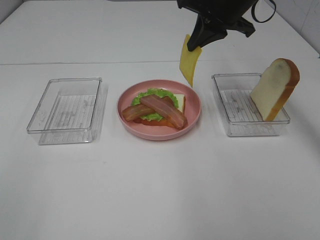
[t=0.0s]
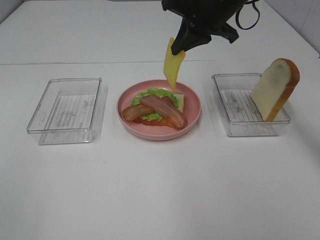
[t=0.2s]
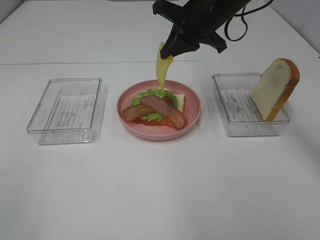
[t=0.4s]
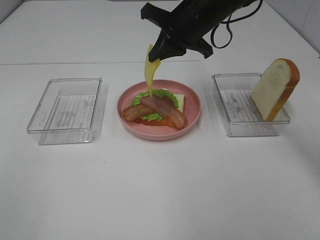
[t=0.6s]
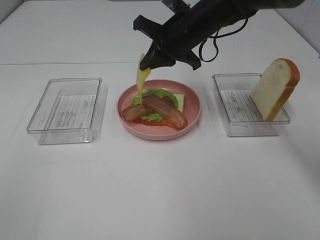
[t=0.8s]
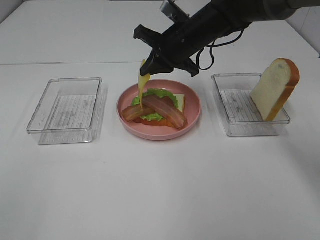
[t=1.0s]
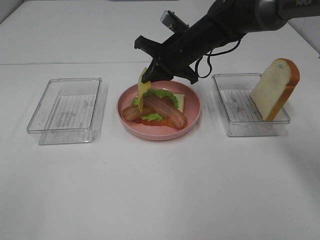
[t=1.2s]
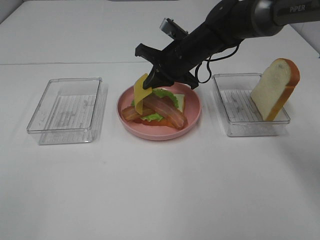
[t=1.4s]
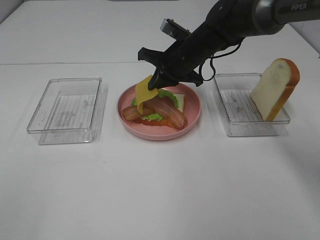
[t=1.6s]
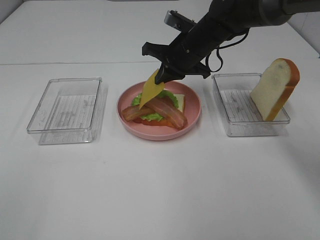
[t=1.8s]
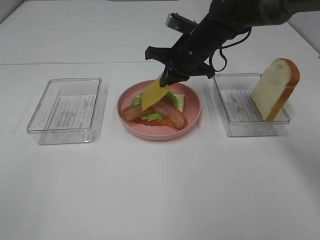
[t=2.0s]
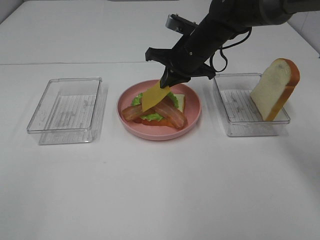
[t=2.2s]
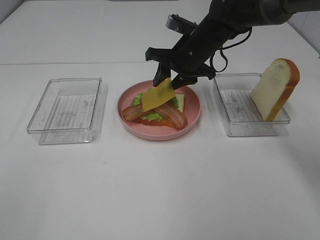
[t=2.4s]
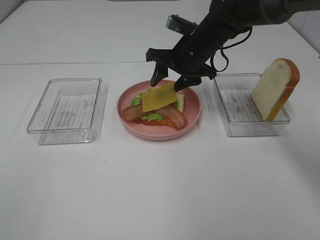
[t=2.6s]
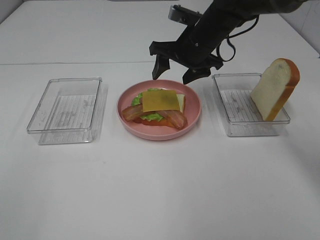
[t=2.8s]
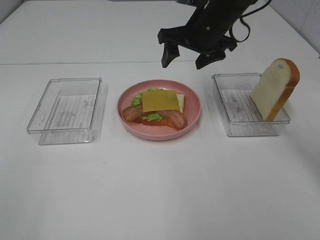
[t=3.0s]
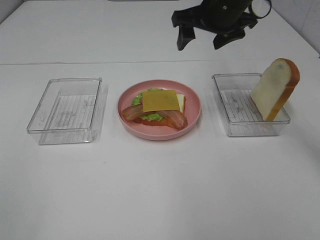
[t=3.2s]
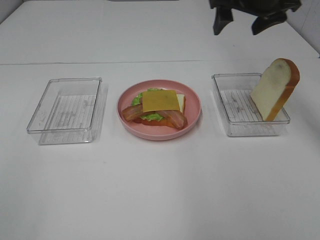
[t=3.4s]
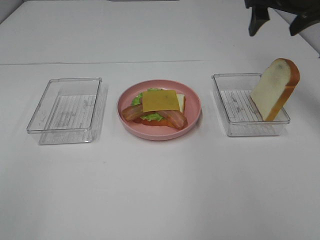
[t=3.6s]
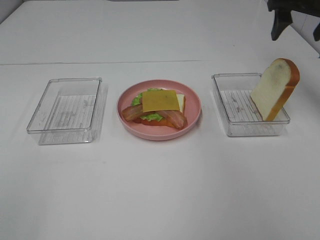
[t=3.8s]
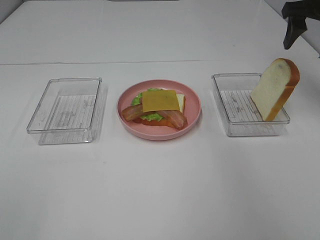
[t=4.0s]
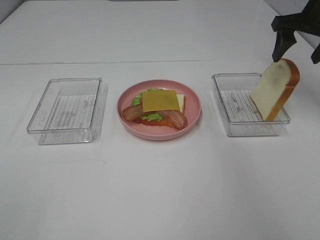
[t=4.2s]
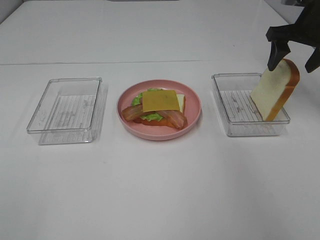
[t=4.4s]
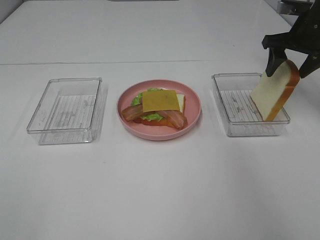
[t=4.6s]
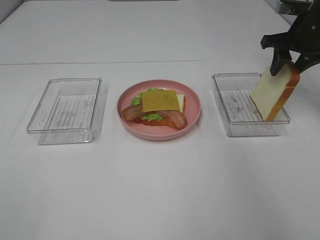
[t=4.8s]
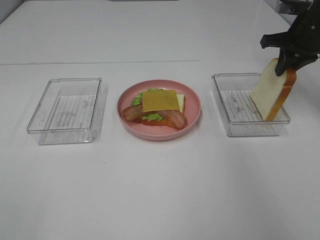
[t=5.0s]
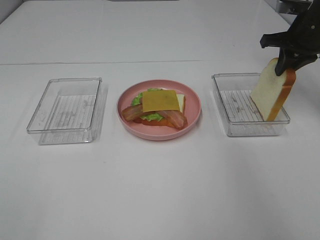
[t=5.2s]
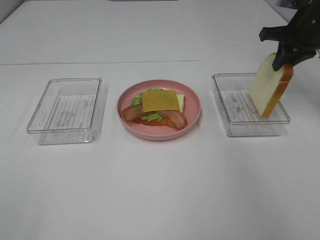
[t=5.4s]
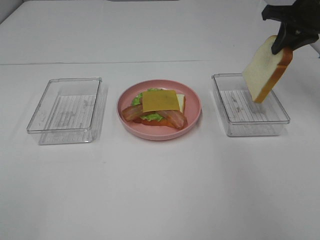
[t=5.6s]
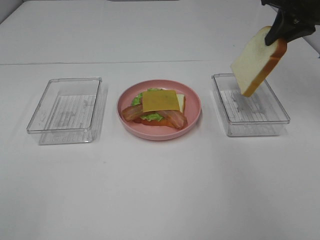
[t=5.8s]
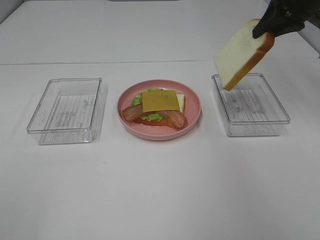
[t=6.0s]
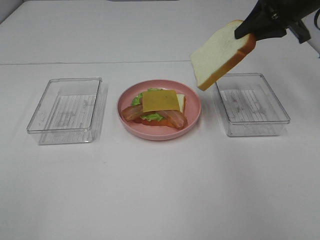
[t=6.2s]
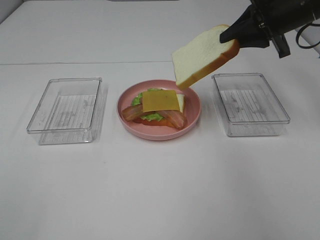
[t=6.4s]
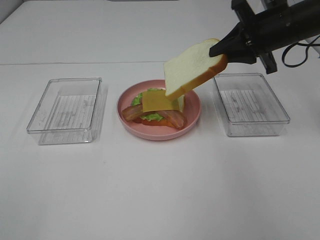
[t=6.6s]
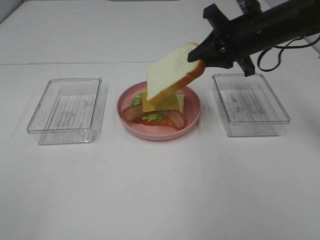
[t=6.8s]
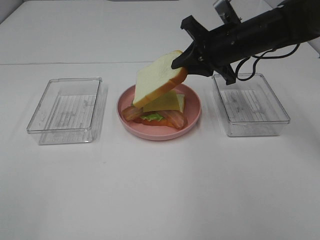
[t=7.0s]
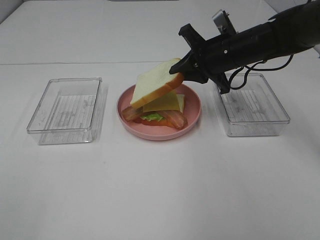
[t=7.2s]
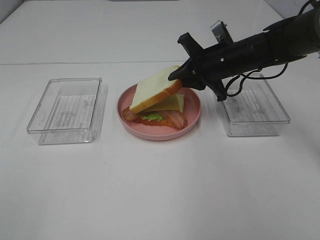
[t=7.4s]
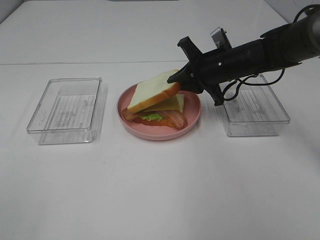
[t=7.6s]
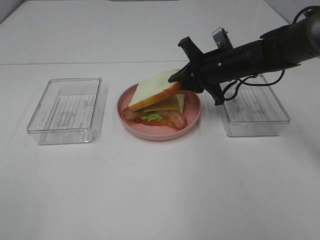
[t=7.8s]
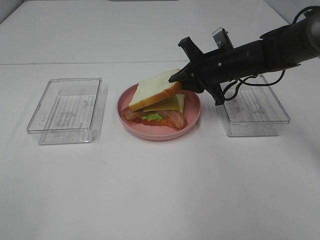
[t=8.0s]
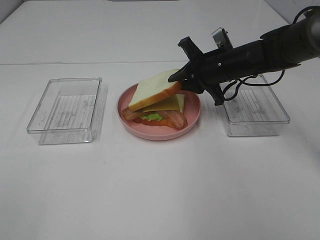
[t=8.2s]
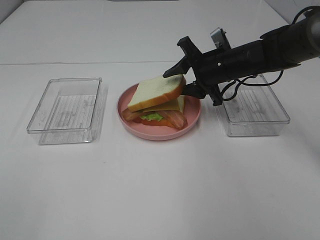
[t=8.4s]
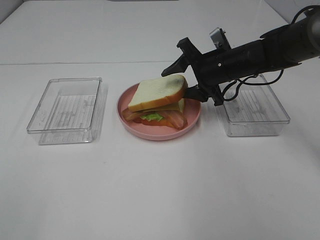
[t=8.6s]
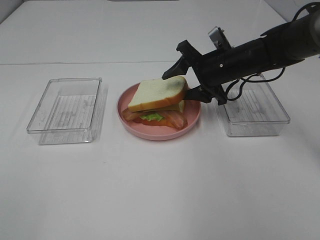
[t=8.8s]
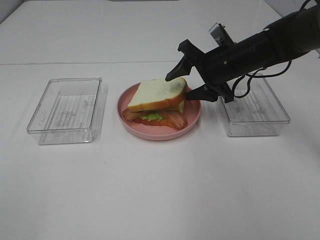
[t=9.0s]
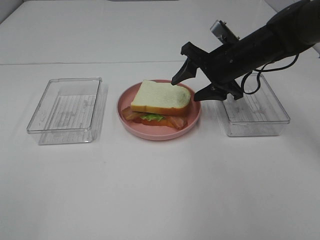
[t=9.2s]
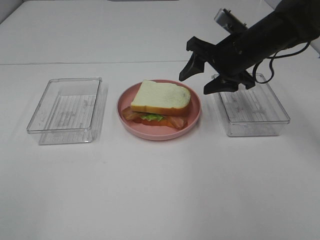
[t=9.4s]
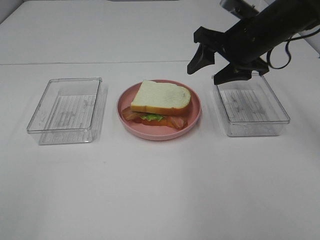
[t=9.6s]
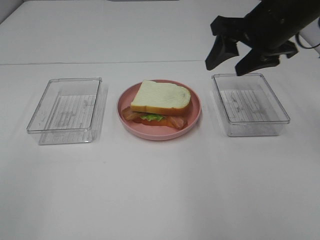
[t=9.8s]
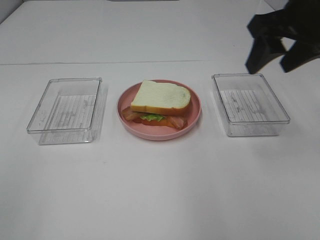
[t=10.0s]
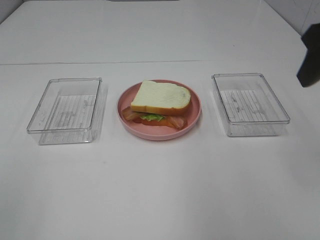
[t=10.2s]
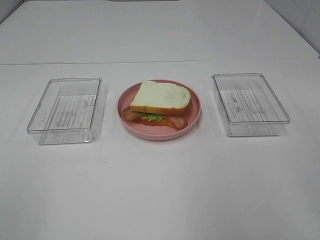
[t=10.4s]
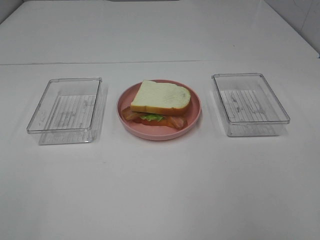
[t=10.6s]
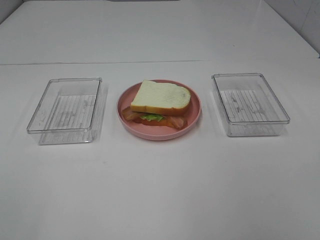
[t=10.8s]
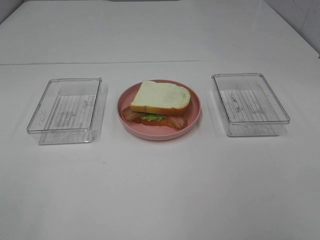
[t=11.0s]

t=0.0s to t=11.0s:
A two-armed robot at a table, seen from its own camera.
Task of the whole recording: Make sandwiches.
Step, t=0.0s to t=3.0s: Right hand:place the cheese slice on top of the bacon.
Step, t=3.2s to t=5.0s: Right hand:grab the bread slice.
Step, t=5.2s to t=9.8s: Right hand:place the bread slice on the cheese slice.
t=0.0s to t=1.6s: The right gripper moves downward and to the left, roughly 15 cm.
t=1.6s to t=3.2s: The right gripper travels upward and to the right by roughly 15 cm, and opens its fingers.
t=3.2s to t=4.8s: The right gripper shifts about 15 cm to the right.
t=4.8s to t=6.2s: The right gripper moves upward, some 5 cm, and closes its fingers.
t=6.2s to t=7.8s: The right gripper travels downward and to the left by roughly 20 cm.
t=7.8s to t=9.4s: The right gripper is displaced upward by approximately 5 cm, and opens up.
t=9.4s to t=11.0s: The right gripper travels backward by roughly 35 cm.

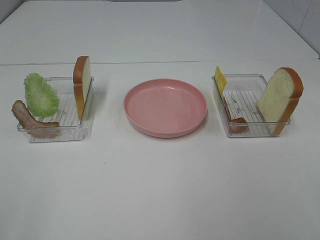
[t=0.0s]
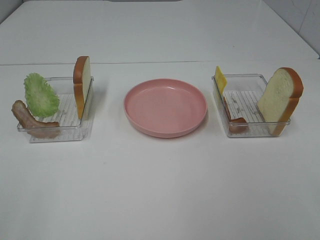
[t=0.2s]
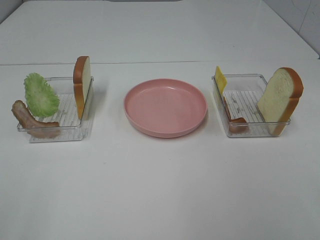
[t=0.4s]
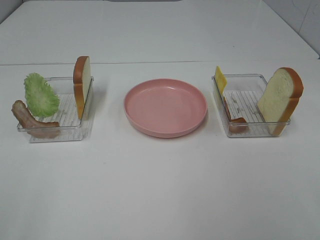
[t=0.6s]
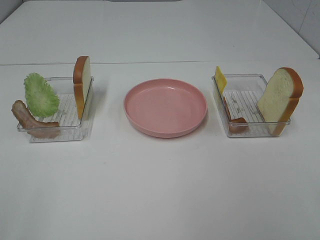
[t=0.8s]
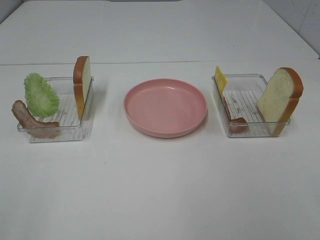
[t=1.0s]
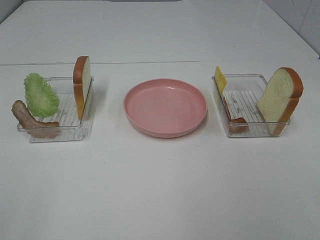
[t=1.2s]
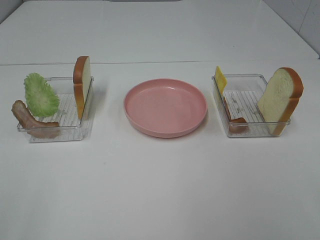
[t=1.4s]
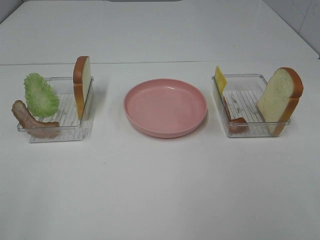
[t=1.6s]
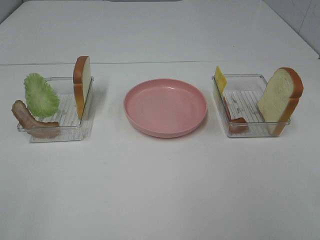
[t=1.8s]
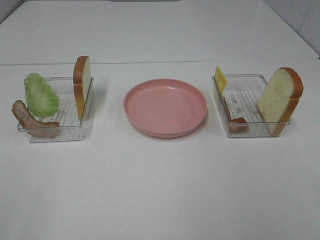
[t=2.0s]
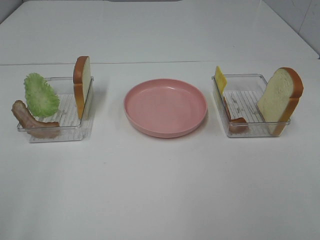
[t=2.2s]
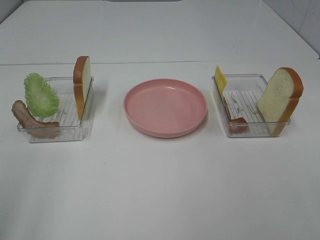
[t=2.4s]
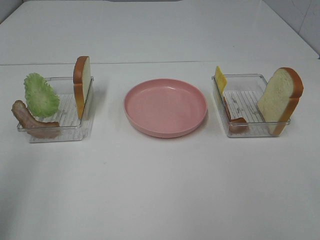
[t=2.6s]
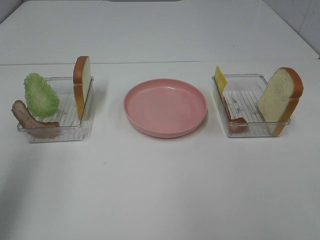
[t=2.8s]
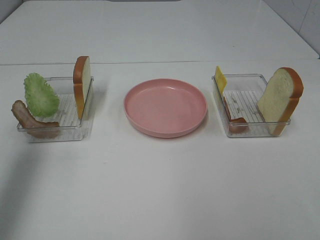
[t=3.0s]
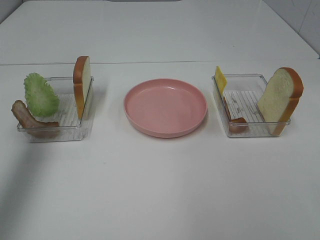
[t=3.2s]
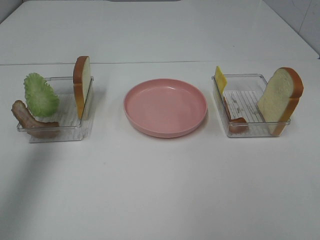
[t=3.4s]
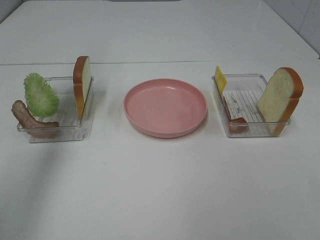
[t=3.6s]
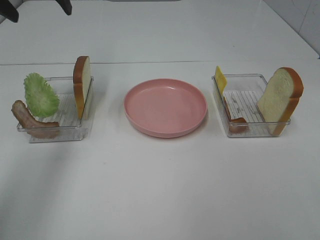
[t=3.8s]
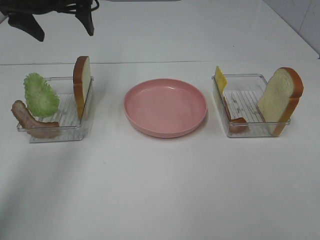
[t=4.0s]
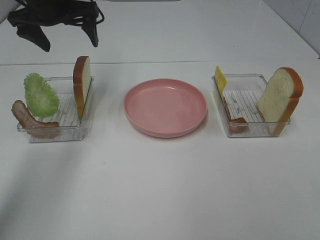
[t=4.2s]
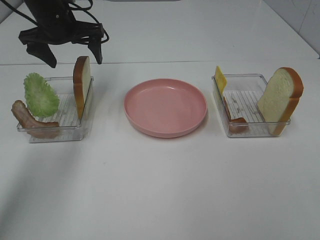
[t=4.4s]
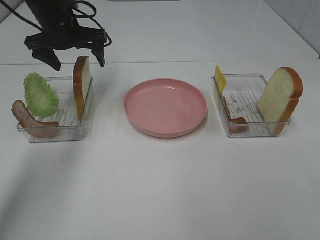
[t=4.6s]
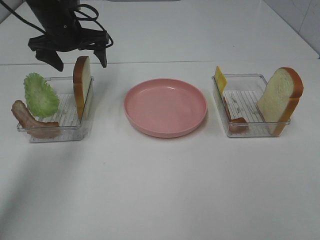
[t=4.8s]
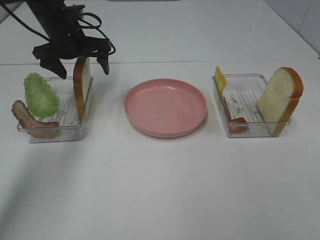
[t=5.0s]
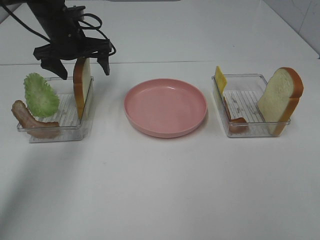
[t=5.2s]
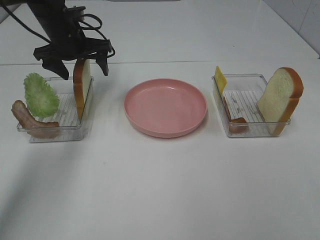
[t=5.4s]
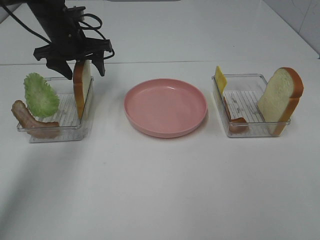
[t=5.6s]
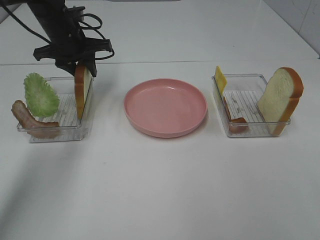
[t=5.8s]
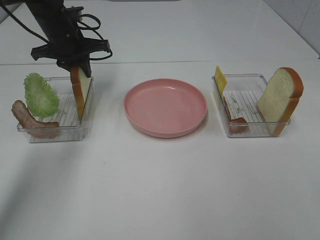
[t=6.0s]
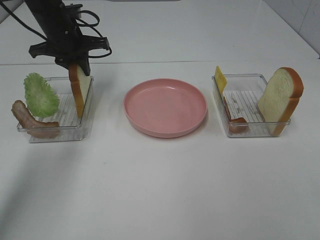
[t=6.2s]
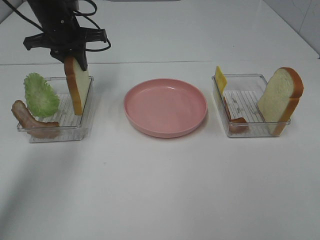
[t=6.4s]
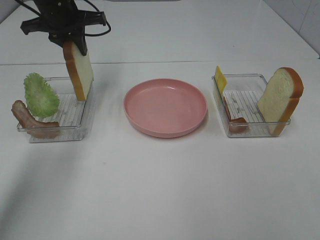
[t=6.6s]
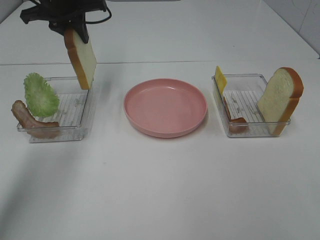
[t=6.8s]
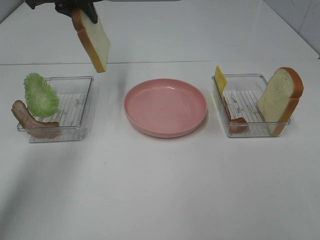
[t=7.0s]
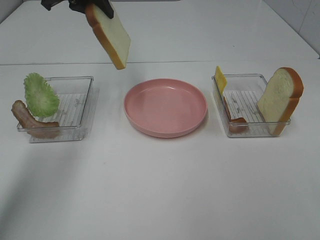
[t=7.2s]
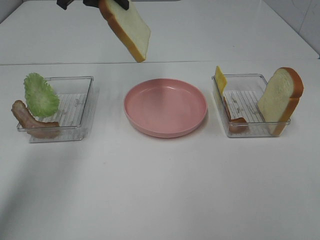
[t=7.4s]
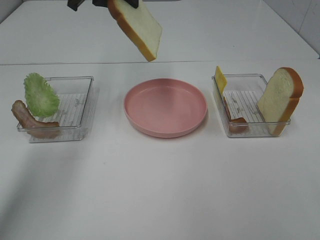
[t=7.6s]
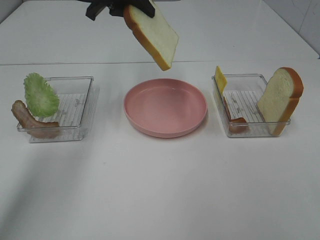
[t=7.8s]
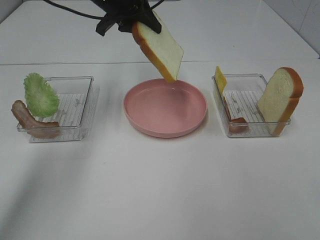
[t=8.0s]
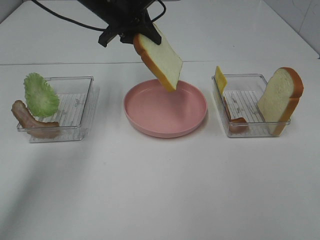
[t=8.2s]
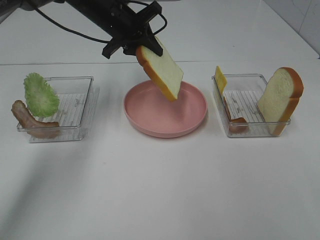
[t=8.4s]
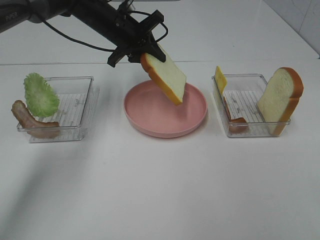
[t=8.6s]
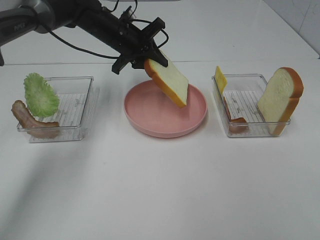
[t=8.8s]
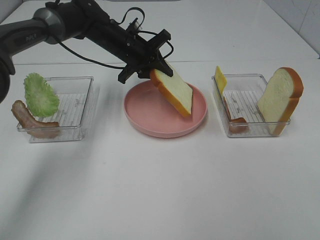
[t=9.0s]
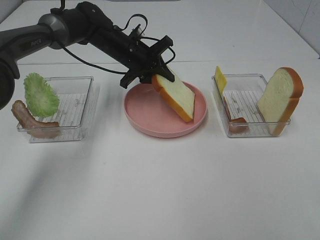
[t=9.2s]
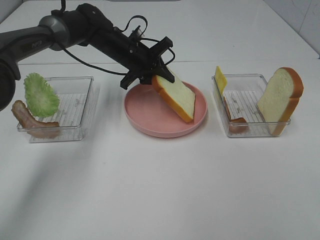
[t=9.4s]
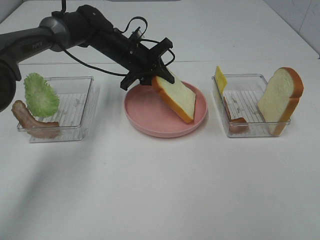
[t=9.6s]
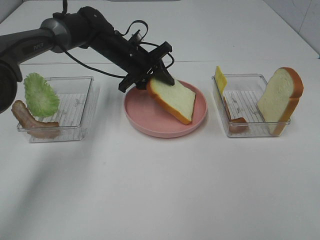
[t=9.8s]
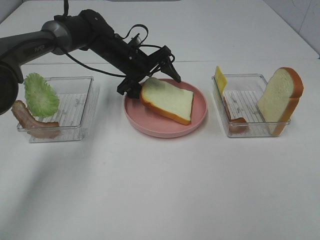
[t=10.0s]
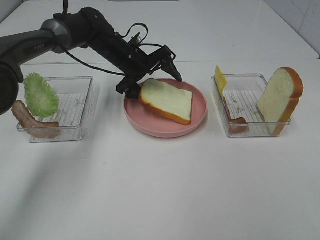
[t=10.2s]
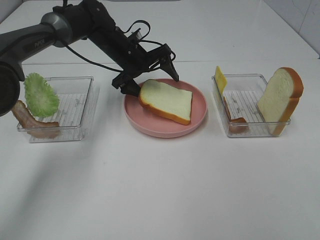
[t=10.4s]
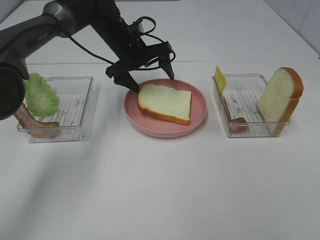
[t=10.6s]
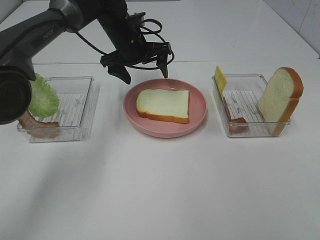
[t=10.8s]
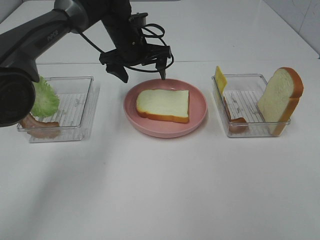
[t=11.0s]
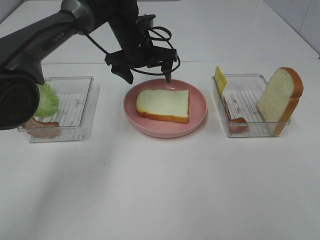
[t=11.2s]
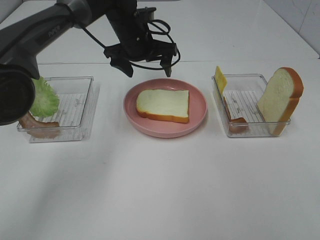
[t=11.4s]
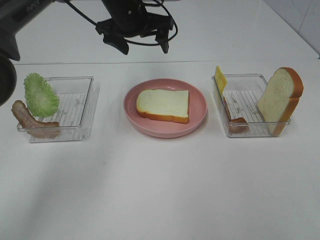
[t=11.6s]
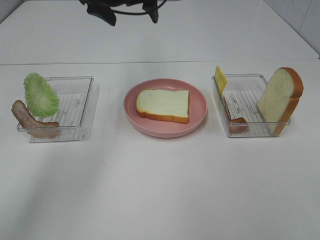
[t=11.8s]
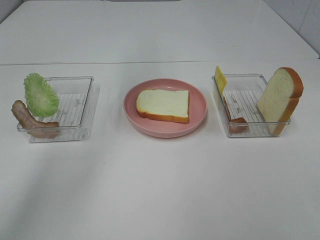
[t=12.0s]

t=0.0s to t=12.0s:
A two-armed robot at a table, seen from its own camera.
Task of the whole recording: Make sandwiches.
Step, t=0.0s to t=6.2s: Left hand:grab the bread slice.
Step, t=6.4s to t=11.0s: Left hand:place the bread slice on the plate.
t=0.0s to t=1.6s: Both grippers stay put.
t=1.6s to t=3.0s: The left gripper shifts roughly 30 cm forward and upward.
t=3.0s to t=4.4s: The left gripper is displaced forward, downward and to the right by approximately 30 cm.
t=4.4s to t=6.0s: The left gripper closes up.
t=6.0s to t=7.6s: The left gripper is displaced upward and to the right by some 15 cm.
t=7.6s to t=9.0s: The left gripper shifts approximately 15 cm downward.
t=9.0s to t=10.4s: The left gripper opens its fingers.
t=10.4s to t=12.0s: The left gripper travels upward by some 20 cm.
